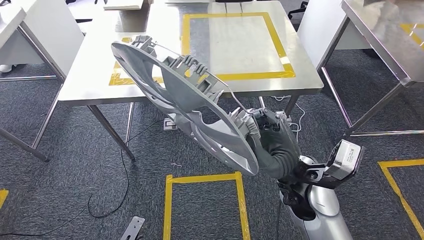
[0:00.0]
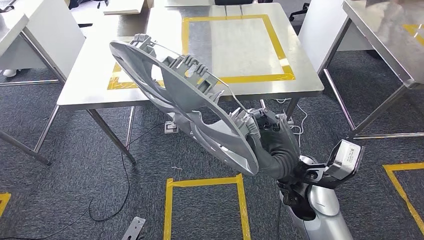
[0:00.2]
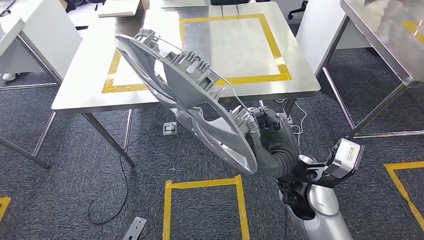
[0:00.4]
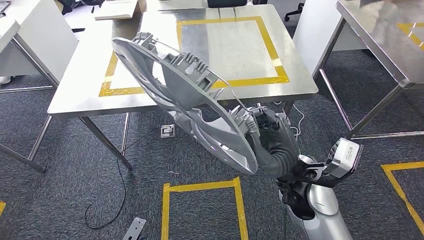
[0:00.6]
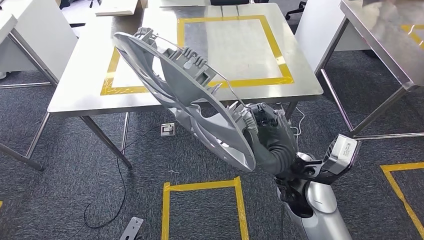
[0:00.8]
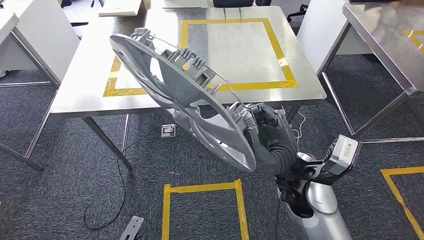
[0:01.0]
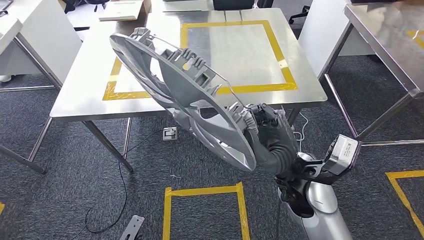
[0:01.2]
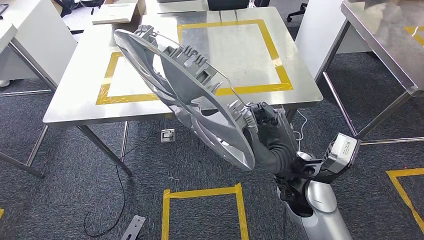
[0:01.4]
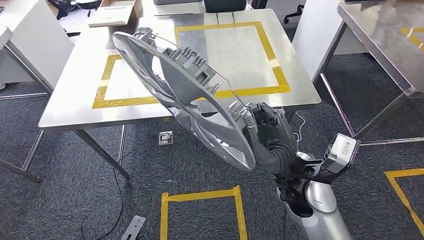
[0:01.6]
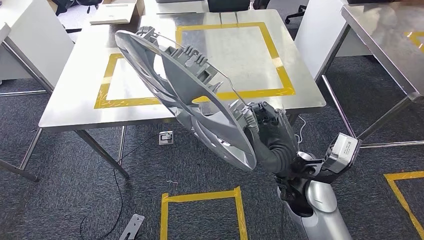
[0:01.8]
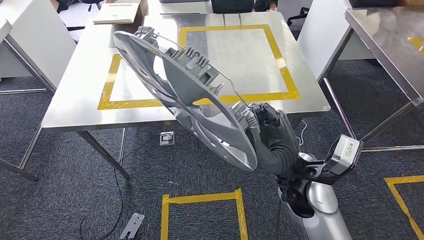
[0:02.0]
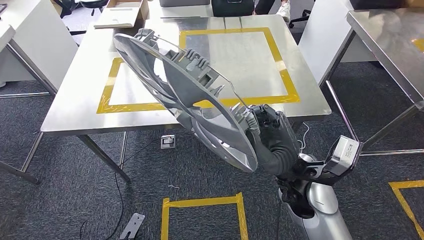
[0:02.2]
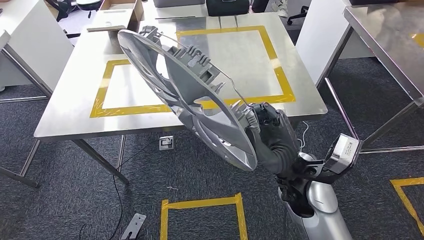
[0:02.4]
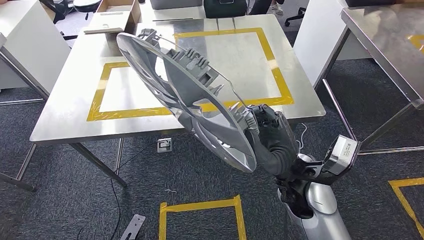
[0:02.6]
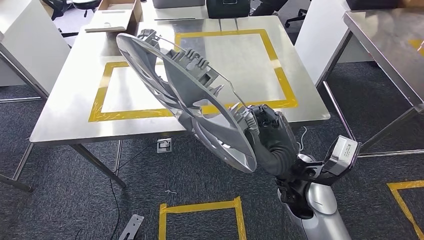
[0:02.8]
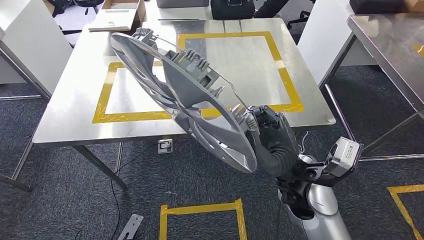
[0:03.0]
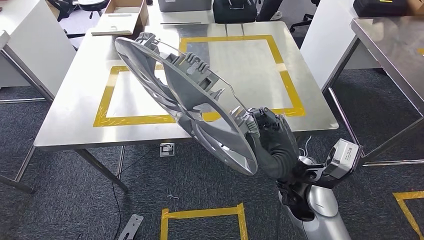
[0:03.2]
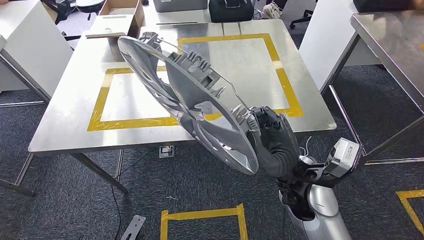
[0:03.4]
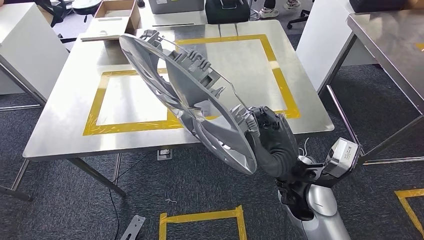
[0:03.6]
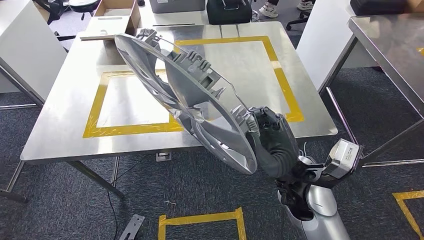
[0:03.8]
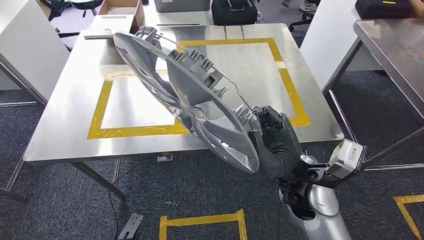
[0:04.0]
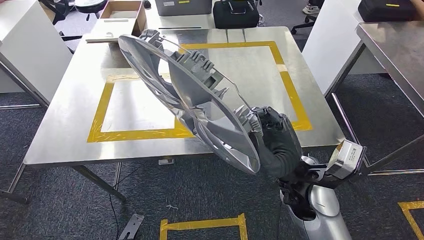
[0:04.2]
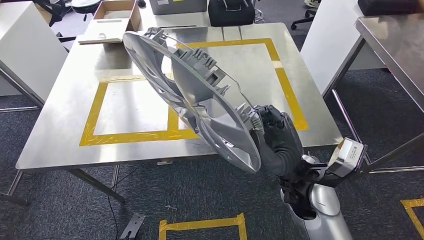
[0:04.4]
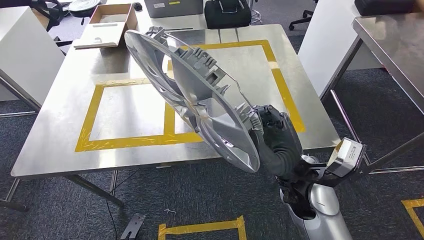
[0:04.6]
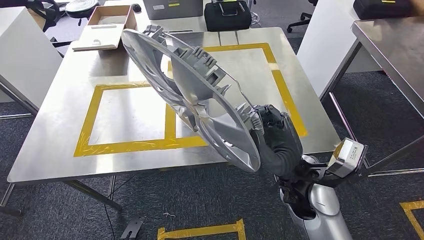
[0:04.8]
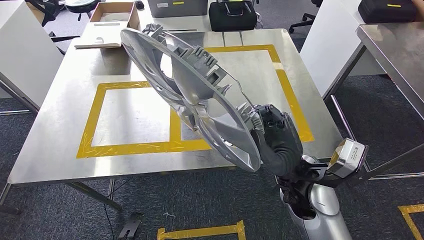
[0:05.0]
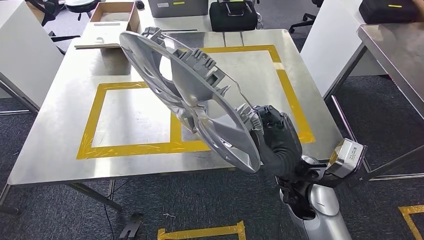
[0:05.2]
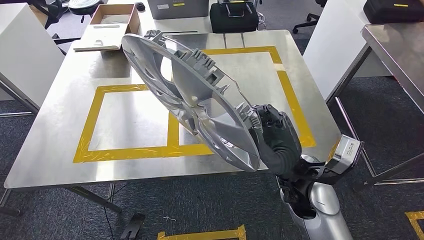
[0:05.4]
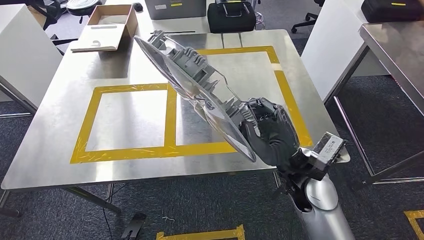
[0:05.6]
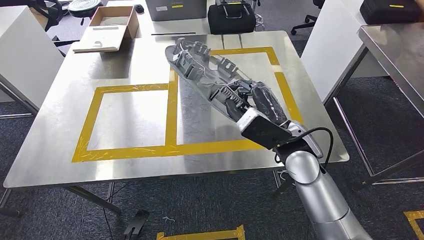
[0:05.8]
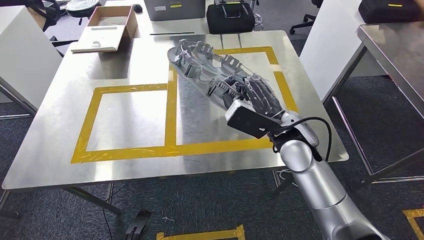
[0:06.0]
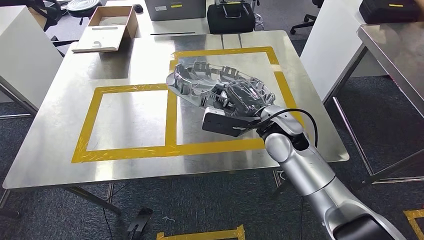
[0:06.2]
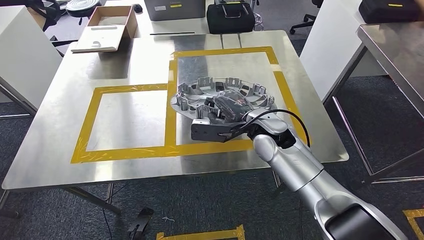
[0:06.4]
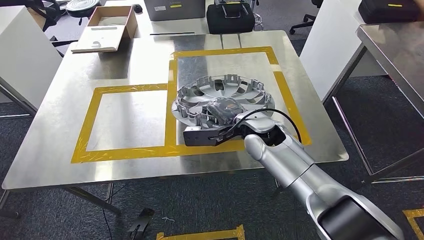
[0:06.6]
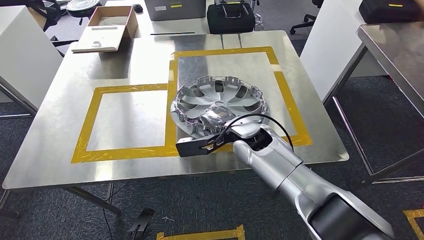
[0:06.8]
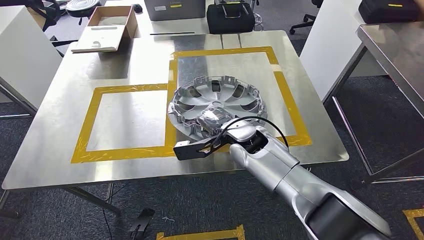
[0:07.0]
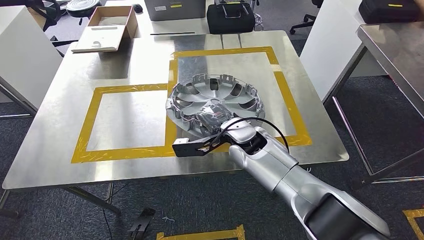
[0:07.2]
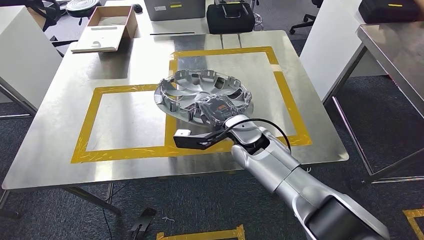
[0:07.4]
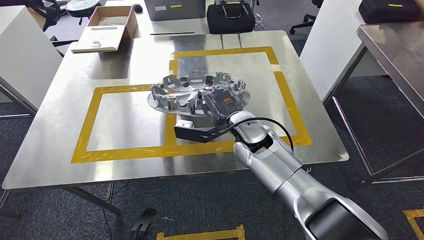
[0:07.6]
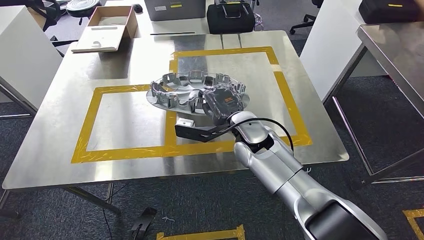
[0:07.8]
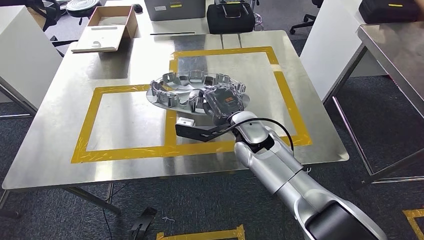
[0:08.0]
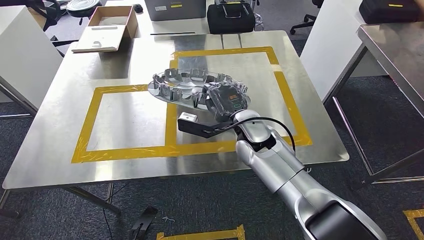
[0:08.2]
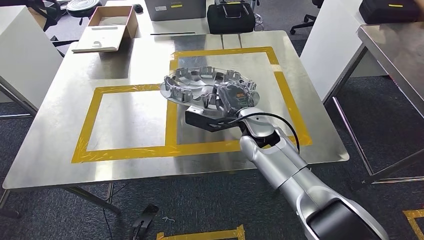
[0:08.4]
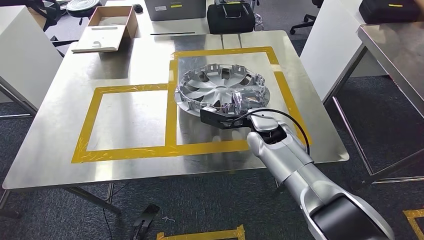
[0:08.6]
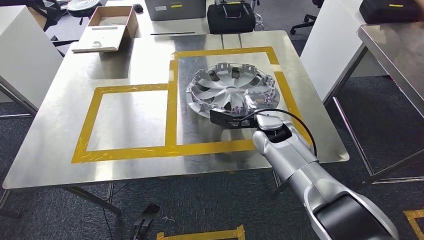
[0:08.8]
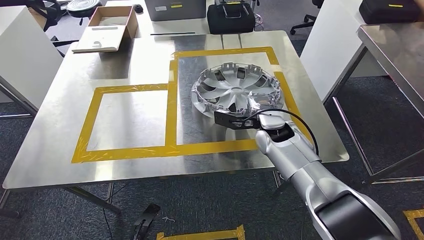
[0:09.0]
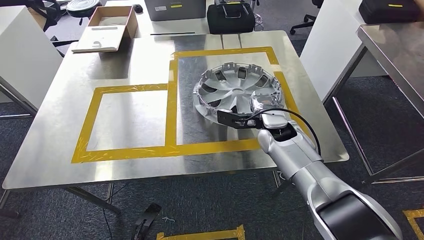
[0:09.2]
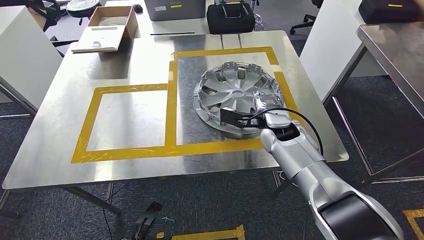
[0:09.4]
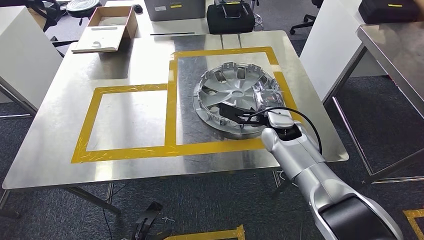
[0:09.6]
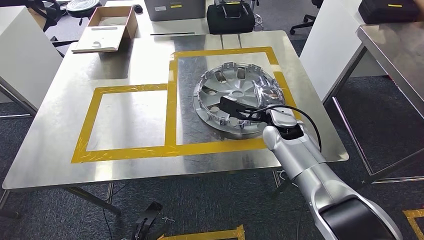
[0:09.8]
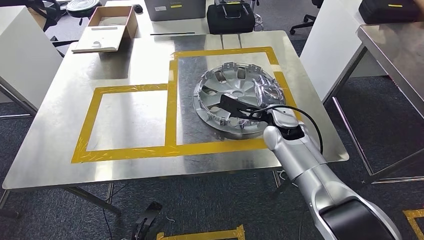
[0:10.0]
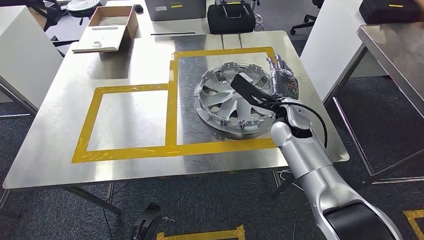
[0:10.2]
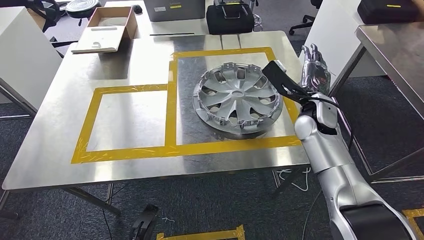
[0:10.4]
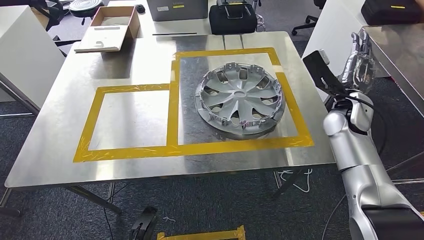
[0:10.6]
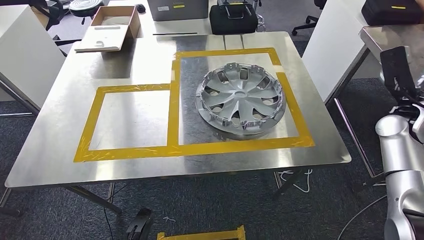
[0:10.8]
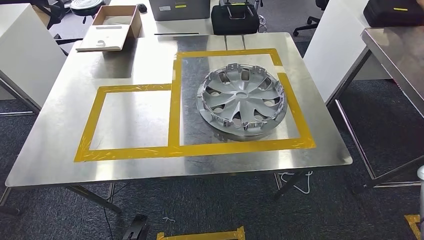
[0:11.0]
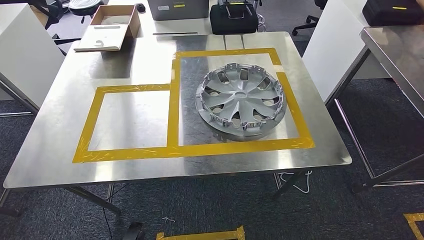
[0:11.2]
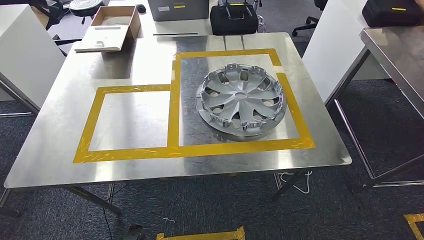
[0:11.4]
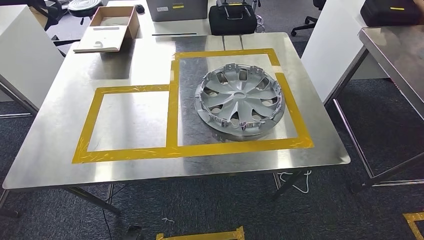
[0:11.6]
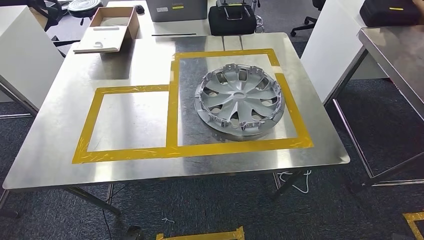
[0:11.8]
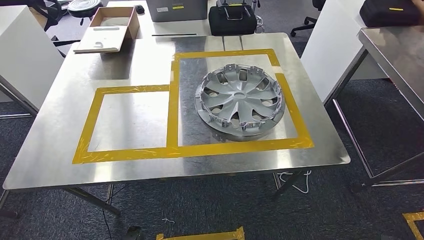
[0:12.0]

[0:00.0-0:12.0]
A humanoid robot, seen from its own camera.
Step, 0:00.0 to 0:04.8: Move the small parts to the workbench.
Step, 0:05.0 to 0:10.6: Insert the small parts into the corresponding slots on the workbench.
0:06.0 to 0:07.6: The right hand shifts roughly 10 cm to the left.
0:07.6 to 0:09.0: The right hand goes some 5 cm to the right.
0:09.0 to 0:10.4: The right hand heads to the right, covering about 10 cm.
0:10.4 to 0:12.0: The left hand goes approximately 5 cm backward; the right hand shifts some 50 cm backward, downward and to the right.

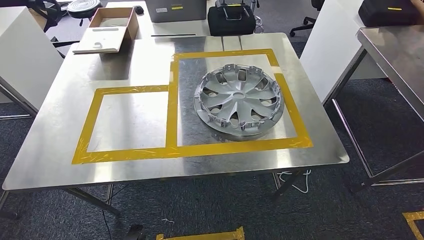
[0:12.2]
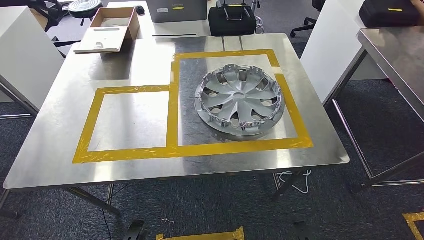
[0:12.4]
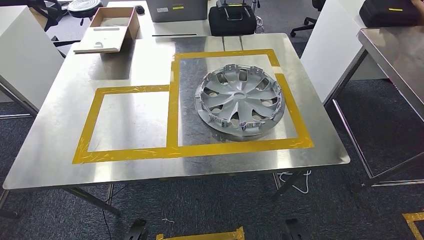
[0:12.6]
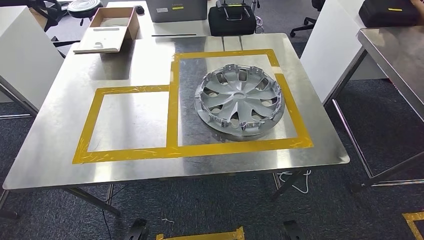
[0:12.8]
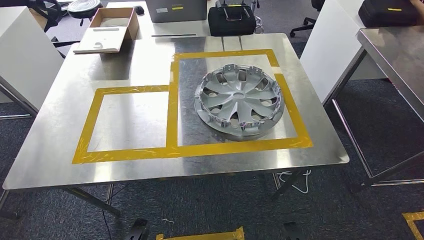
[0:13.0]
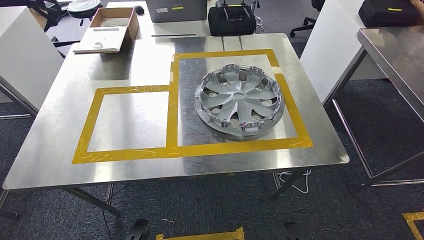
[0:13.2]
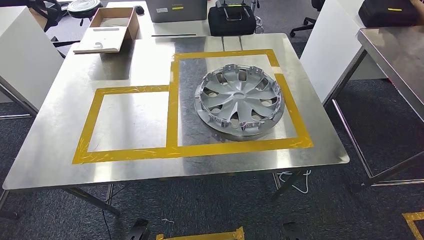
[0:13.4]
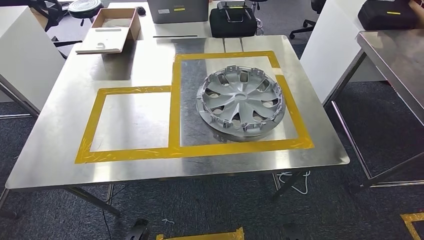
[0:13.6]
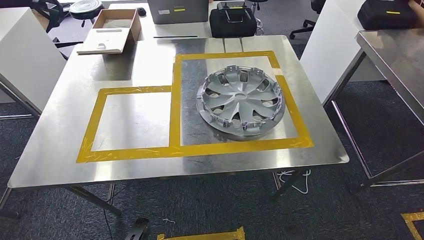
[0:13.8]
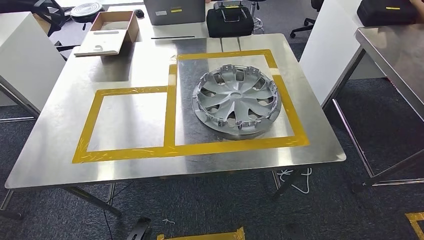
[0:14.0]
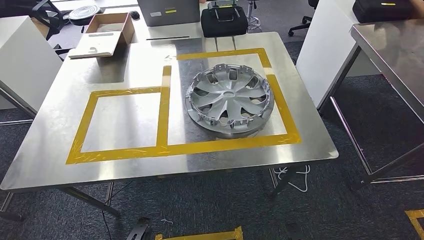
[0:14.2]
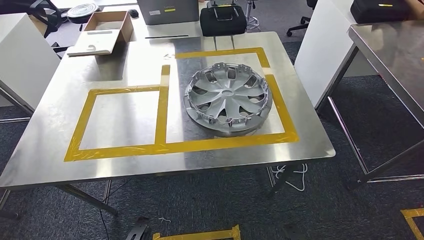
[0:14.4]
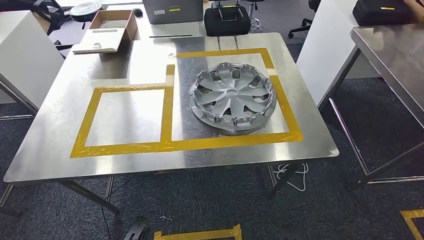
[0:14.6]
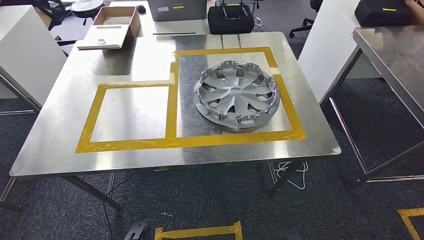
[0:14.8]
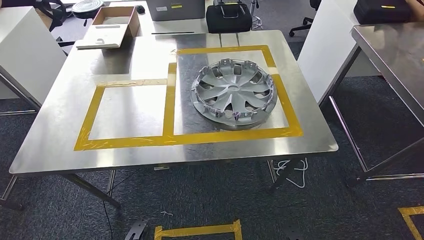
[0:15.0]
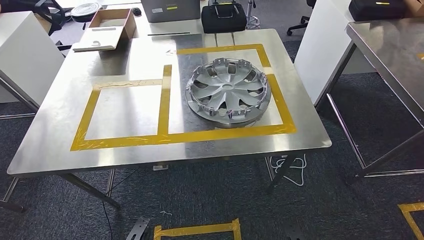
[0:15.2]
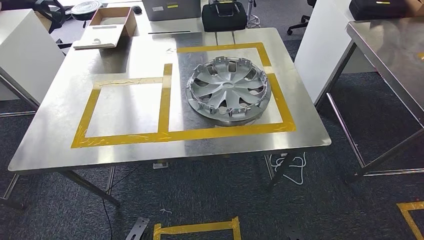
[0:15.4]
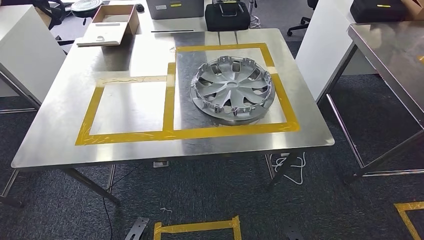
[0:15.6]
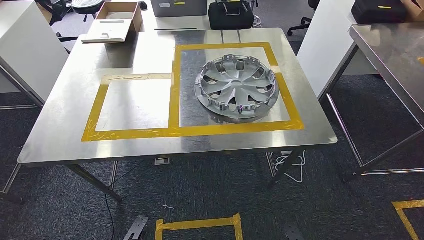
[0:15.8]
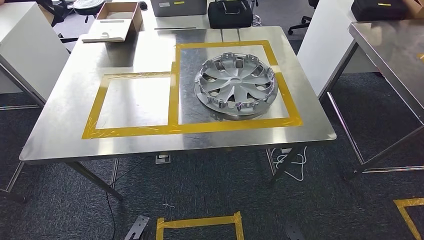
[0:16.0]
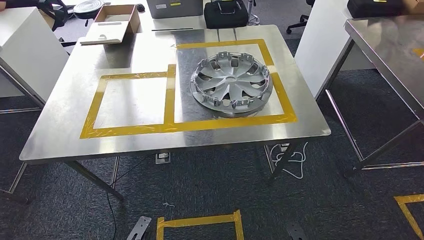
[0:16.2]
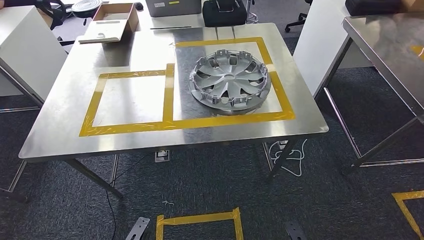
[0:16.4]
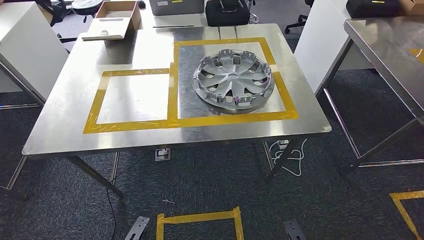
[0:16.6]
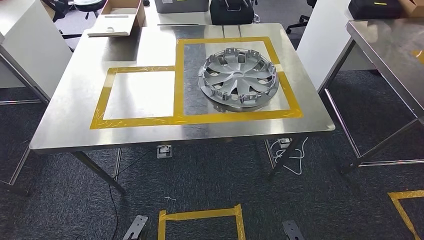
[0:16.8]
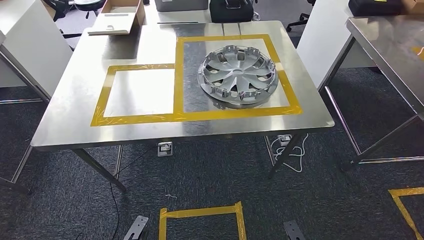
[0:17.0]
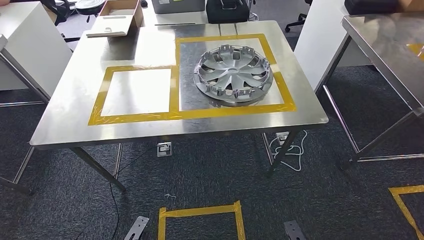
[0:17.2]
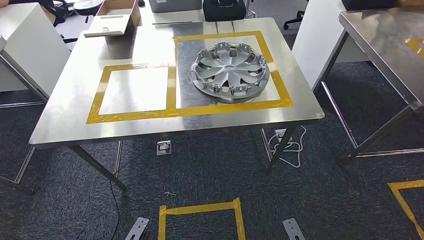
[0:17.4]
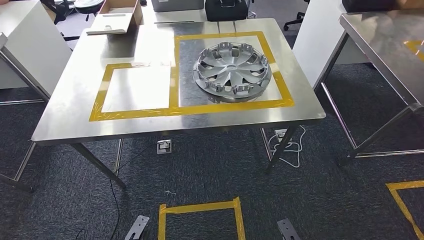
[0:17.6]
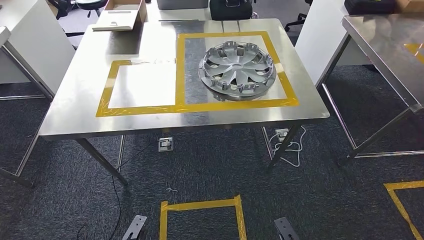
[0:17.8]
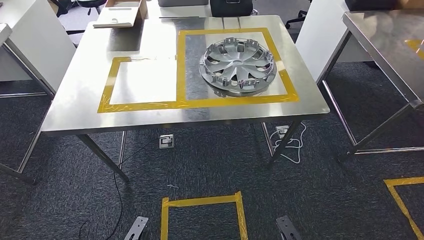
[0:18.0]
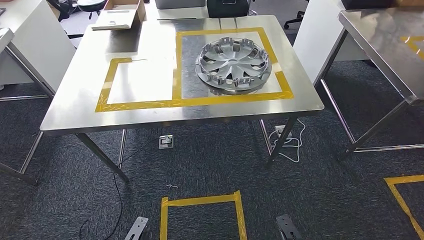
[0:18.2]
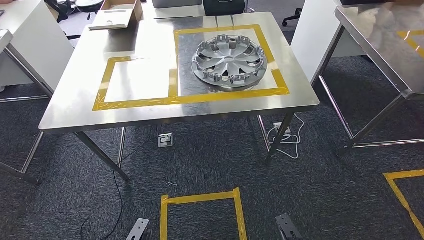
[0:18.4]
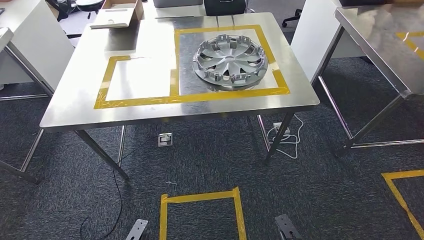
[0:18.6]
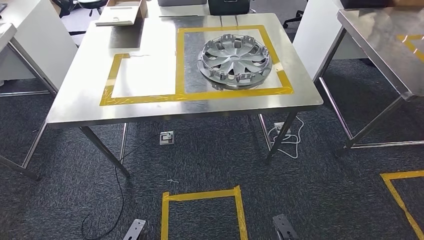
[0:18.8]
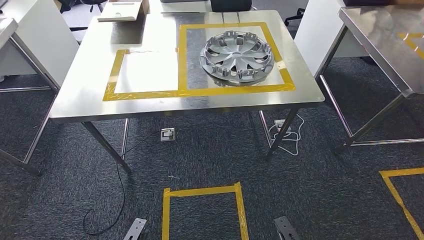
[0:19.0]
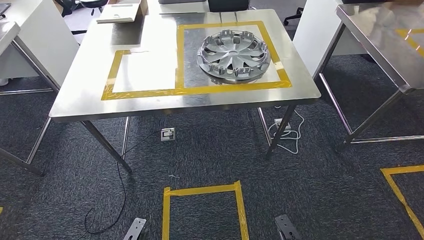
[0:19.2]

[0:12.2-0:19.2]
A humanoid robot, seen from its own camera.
0:12.2 to 0:13.6: The right hand goes about 10 cm to the left.
